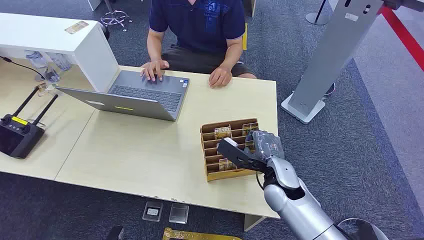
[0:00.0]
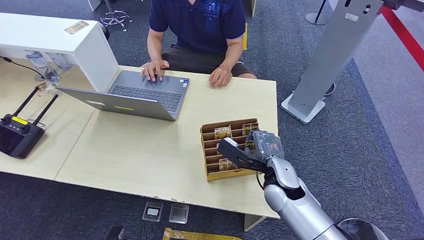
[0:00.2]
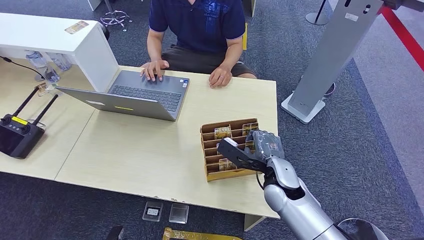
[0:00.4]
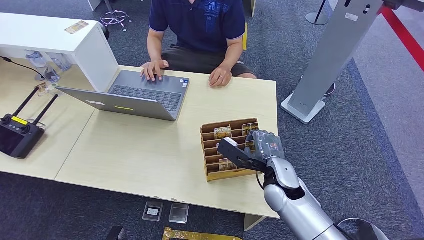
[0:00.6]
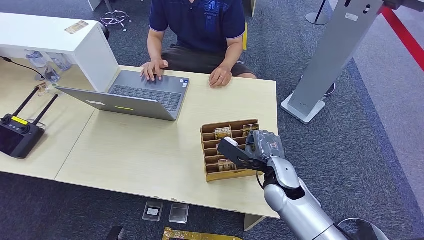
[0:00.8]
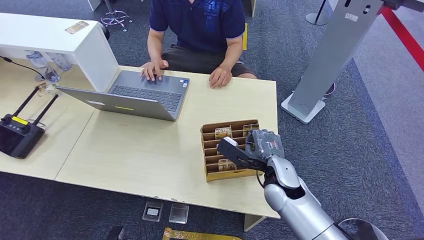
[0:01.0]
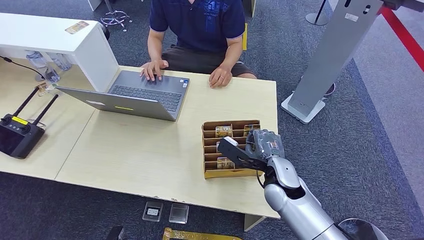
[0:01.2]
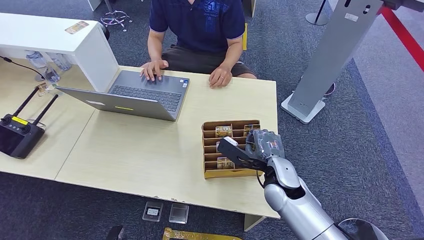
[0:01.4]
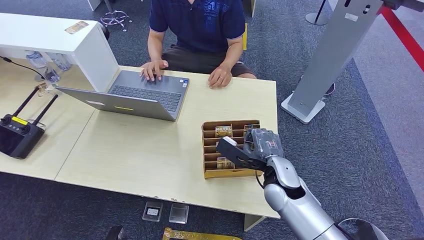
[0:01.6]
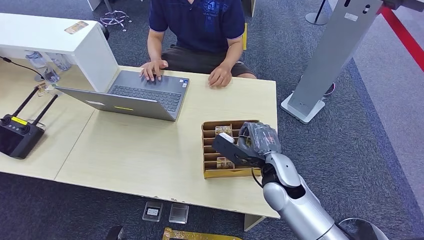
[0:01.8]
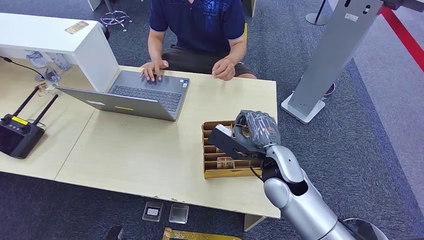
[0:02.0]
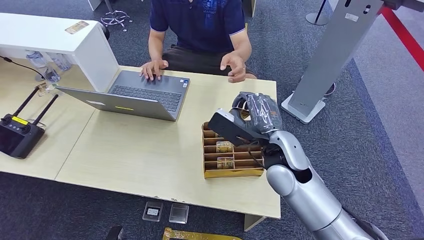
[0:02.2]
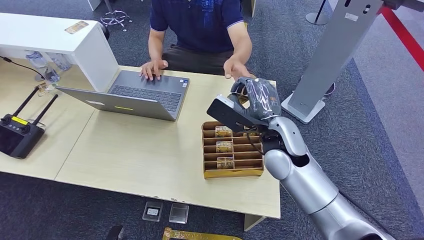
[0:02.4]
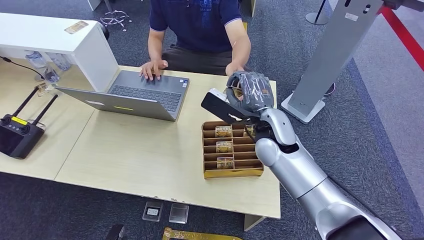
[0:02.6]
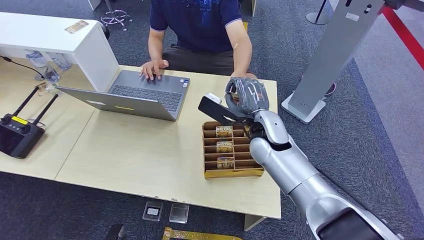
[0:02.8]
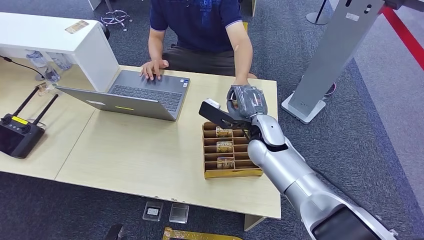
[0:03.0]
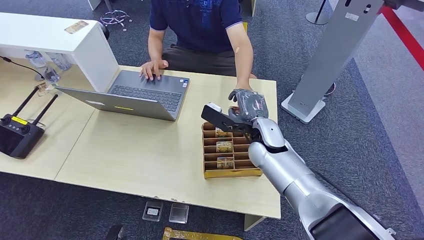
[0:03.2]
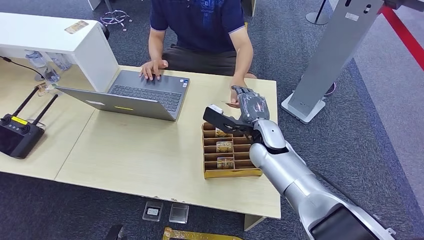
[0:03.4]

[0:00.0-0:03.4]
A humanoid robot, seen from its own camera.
Step, 0:00.0 to 0:01.8: Pick up the room card from the card holder.
Step, 0:02.4 to 0:03.4: Hand the room card to the target.
0:01.6 to 0:03.4: The right hand heads forward, covering approximately 10 cm.
